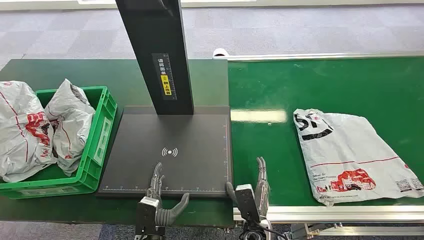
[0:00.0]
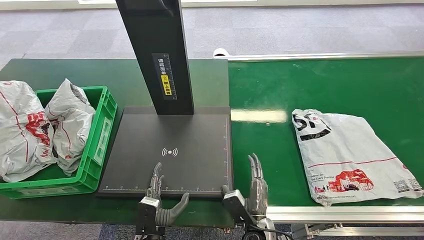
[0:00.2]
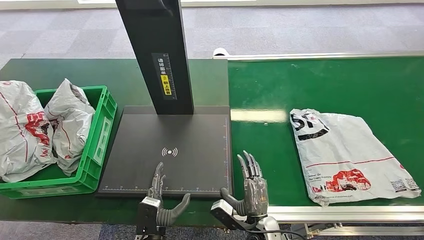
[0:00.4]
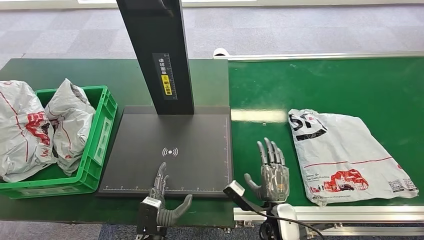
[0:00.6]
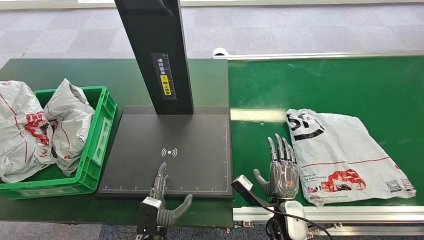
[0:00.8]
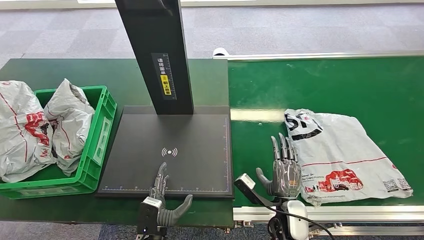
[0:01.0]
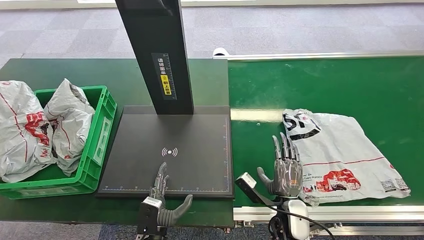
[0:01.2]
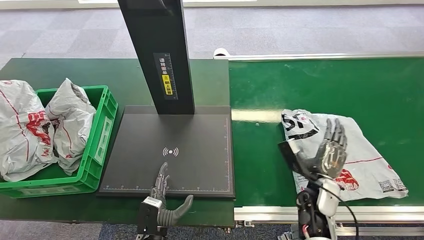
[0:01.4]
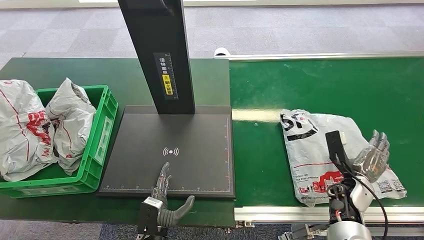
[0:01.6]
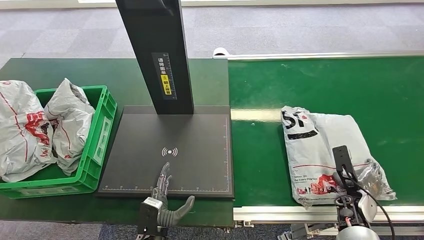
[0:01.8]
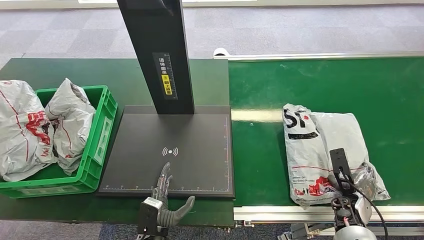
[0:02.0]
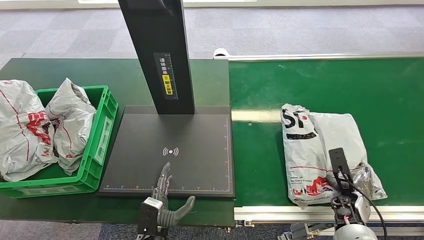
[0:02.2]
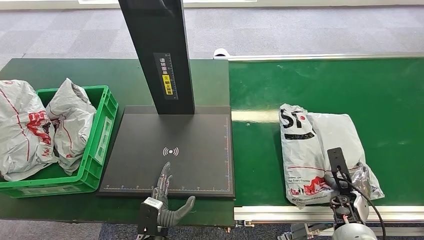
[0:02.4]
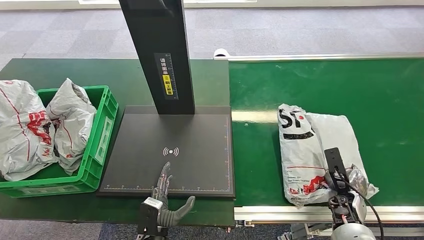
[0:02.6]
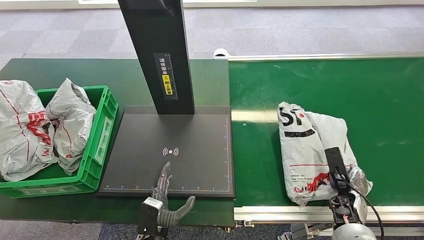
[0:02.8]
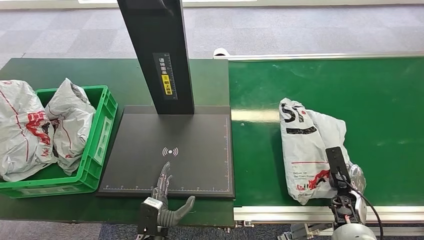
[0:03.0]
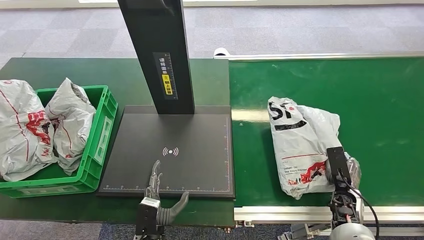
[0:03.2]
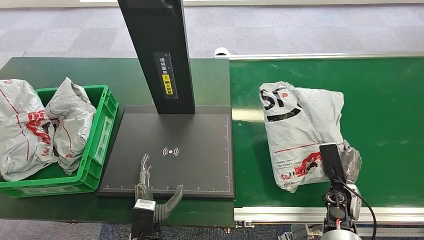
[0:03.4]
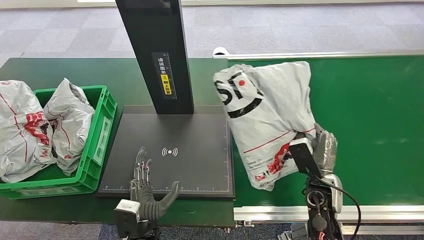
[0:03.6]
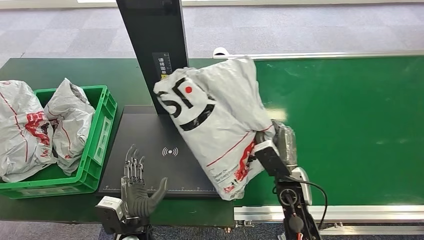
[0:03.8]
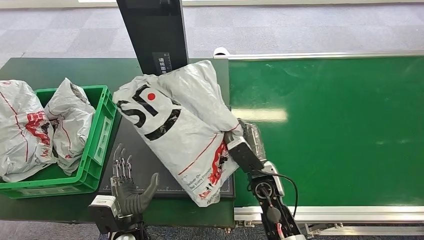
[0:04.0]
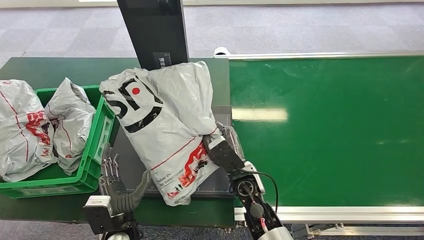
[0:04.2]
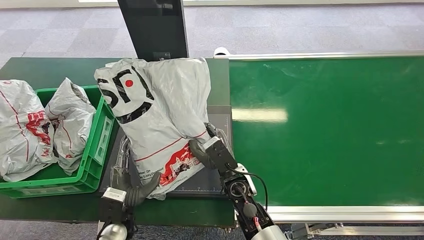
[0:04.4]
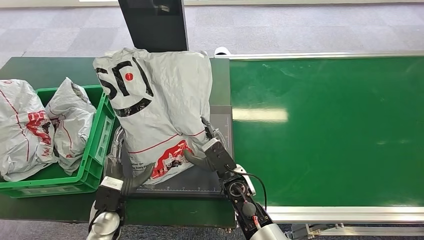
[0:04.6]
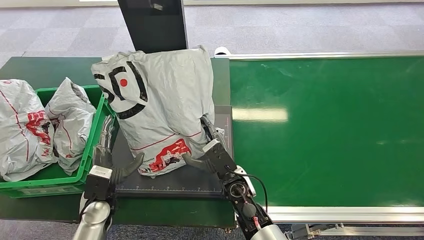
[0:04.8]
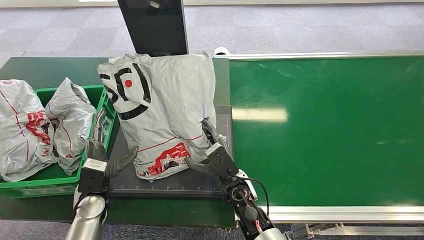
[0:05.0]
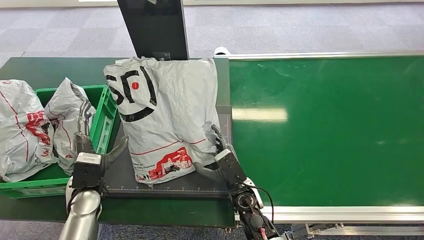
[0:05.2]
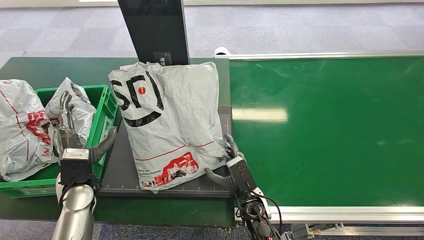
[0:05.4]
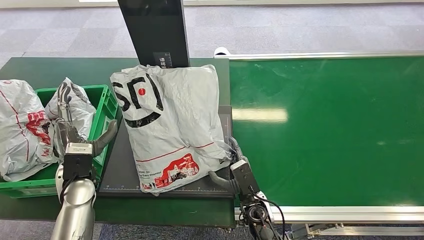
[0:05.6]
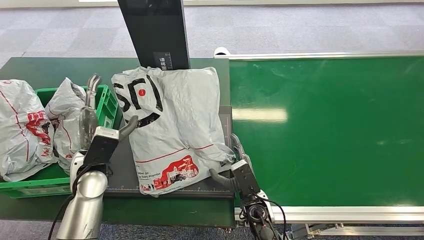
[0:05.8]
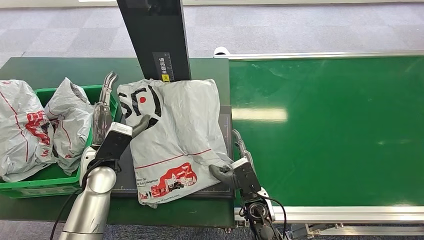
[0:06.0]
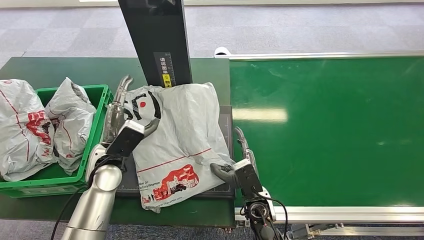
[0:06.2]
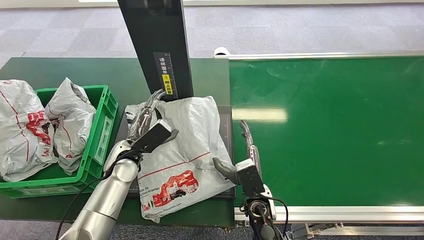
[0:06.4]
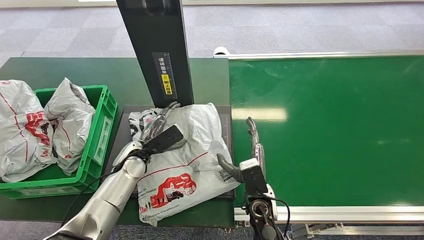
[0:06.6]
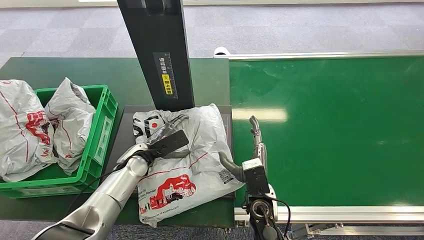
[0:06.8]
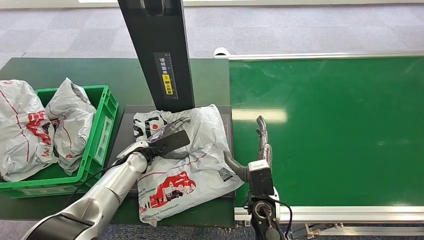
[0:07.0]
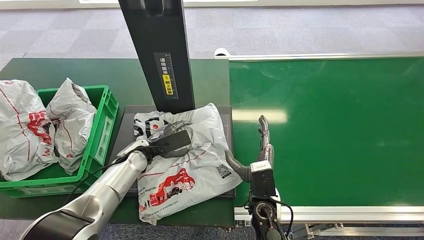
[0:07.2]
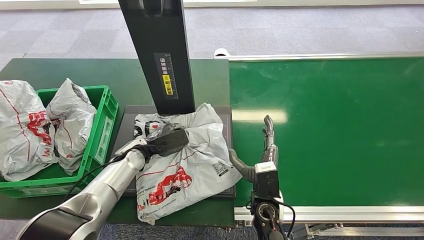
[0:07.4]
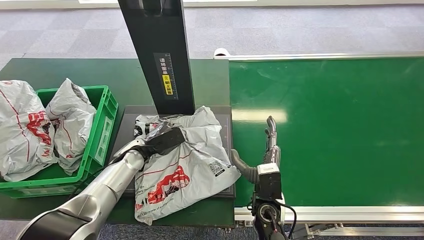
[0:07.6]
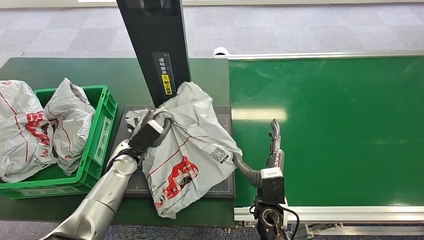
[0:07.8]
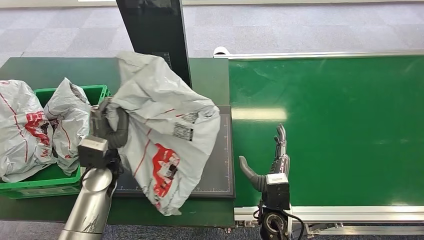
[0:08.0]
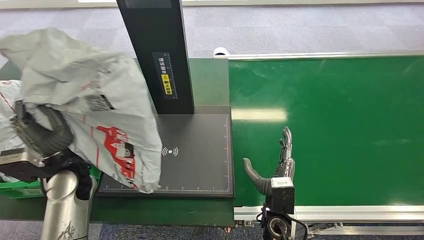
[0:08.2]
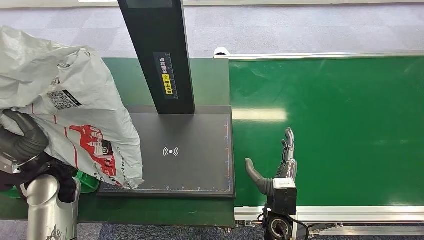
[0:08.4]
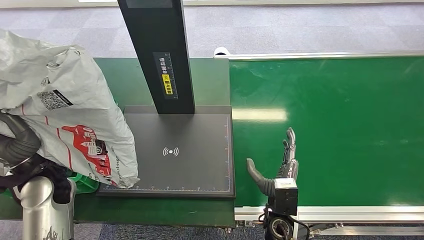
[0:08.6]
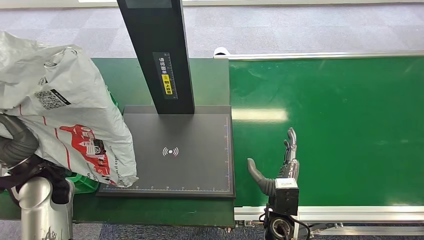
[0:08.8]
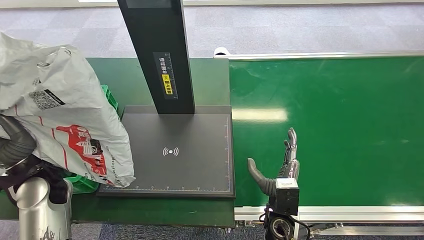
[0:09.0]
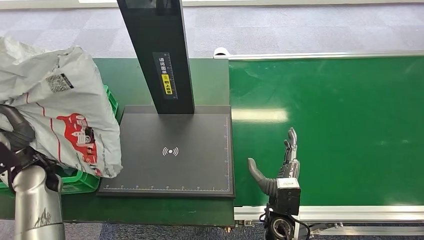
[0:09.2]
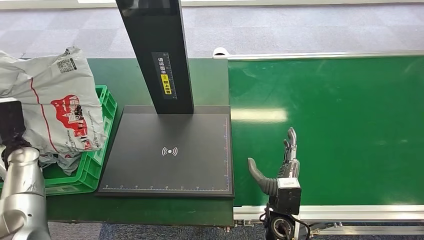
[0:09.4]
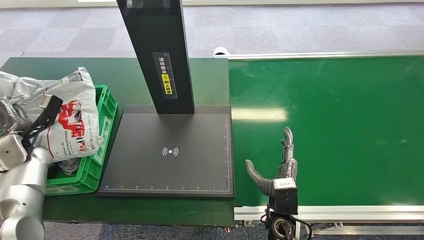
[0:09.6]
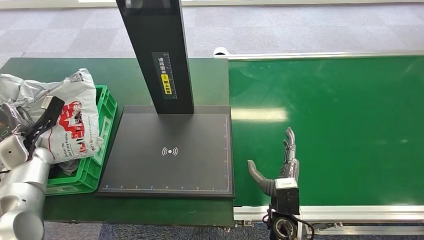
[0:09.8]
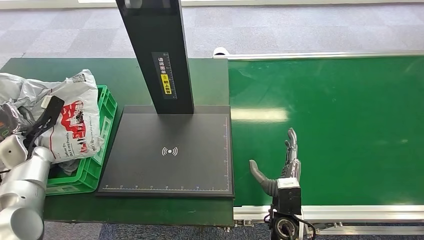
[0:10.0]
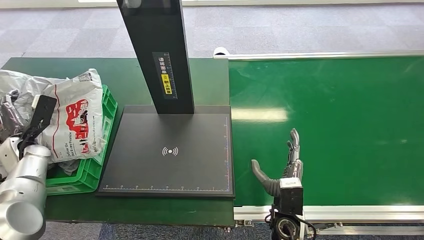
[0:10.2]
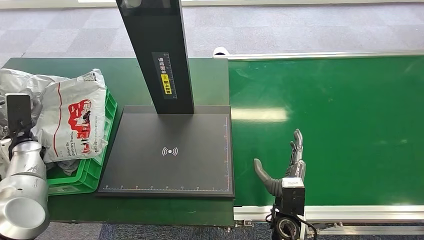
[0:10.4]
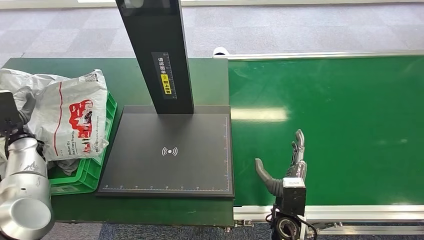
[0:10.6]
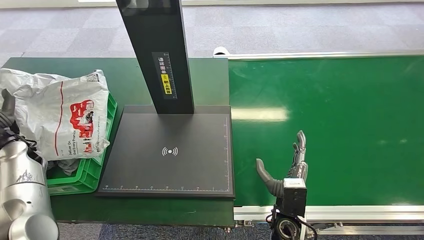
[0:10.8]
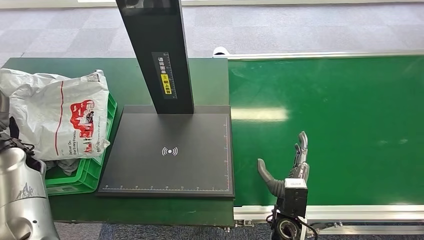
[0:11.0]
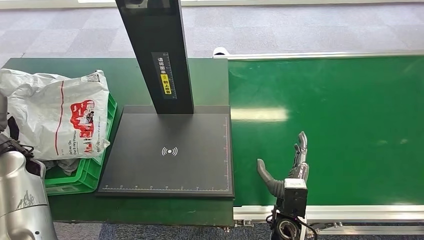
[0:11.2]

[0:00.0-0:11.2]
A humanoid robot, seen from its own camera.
Step, 0:00.0 to 0:04.2: Pick up the package from the conveyor belt.
Step, 0:04.6 to 0:06.4: Place the package onto the inbound machine.
Step, 0:06.8 to 0:08.4: Pick up the package from the inbound machine.
Step, 0:08.8 to 0:11.2: Place the package into the parcel locker.
0:01.6 to 0:03.2: The right hand moves about 5 cm.
0:09.6 to 0:11.2: The left hand ends up about 5 cm from where it was.

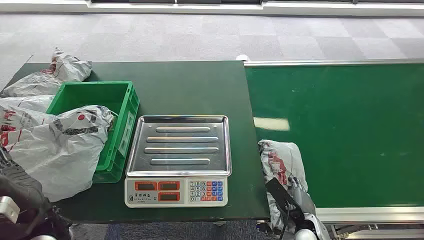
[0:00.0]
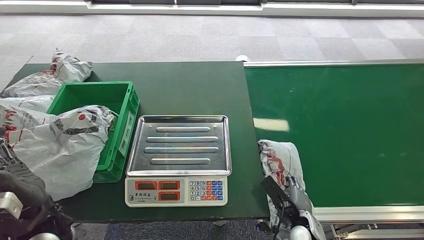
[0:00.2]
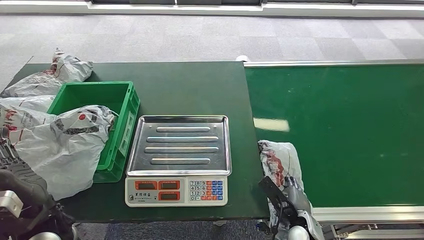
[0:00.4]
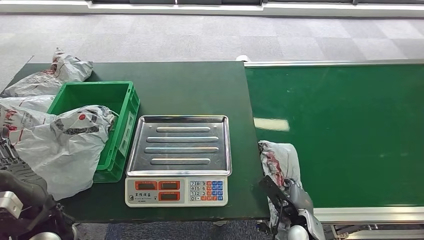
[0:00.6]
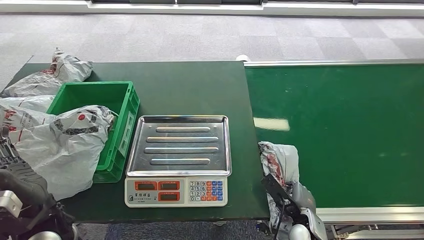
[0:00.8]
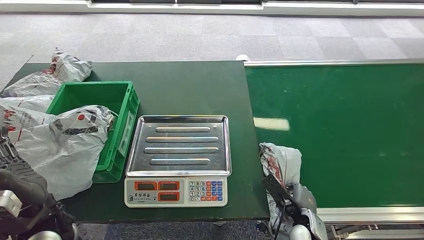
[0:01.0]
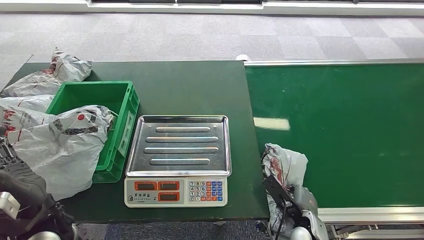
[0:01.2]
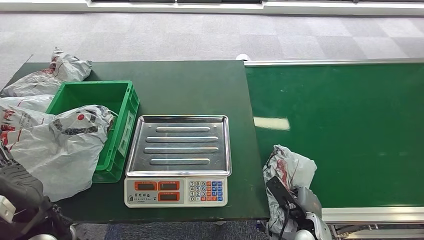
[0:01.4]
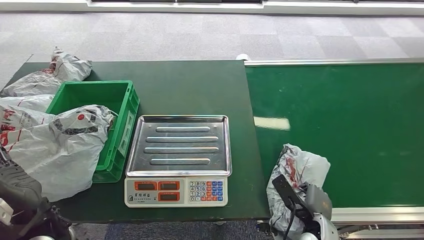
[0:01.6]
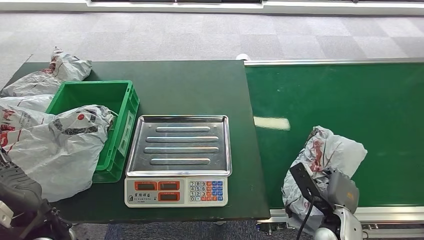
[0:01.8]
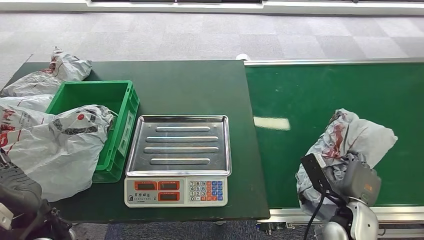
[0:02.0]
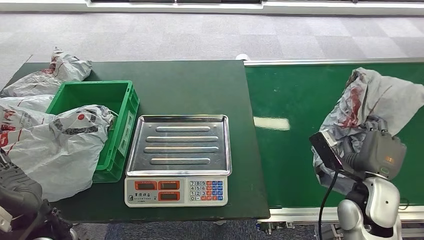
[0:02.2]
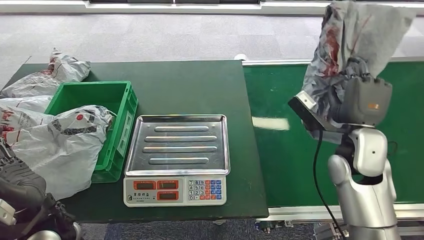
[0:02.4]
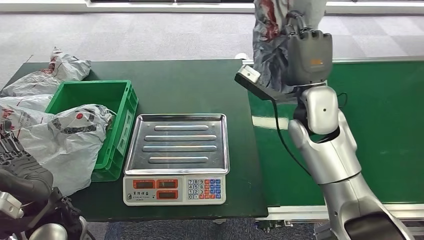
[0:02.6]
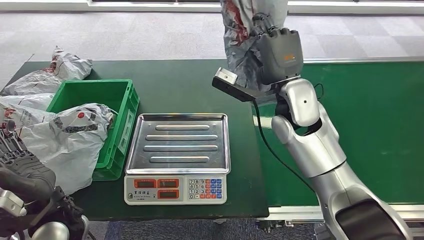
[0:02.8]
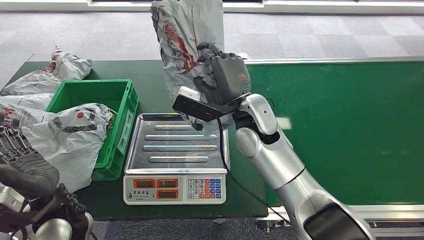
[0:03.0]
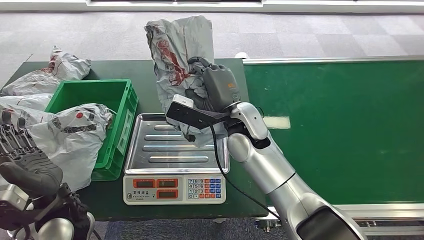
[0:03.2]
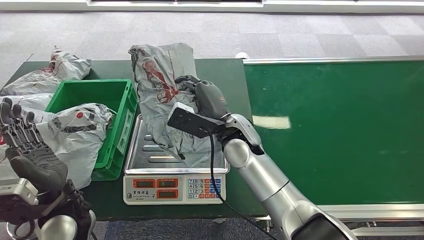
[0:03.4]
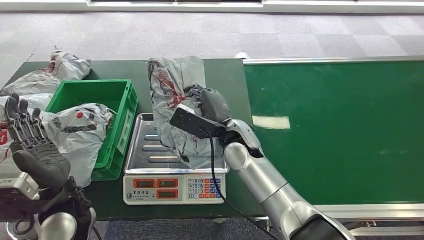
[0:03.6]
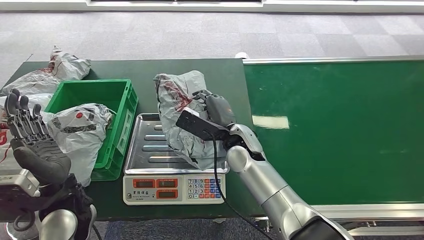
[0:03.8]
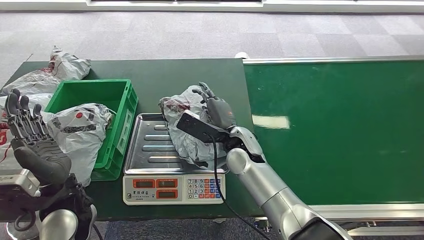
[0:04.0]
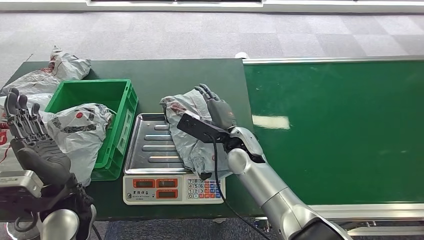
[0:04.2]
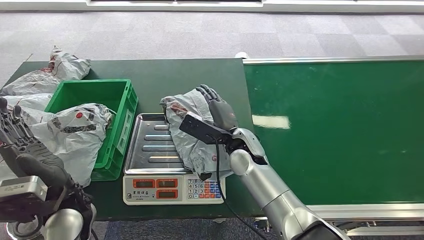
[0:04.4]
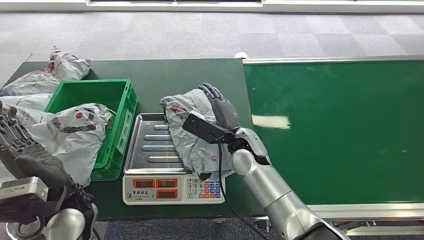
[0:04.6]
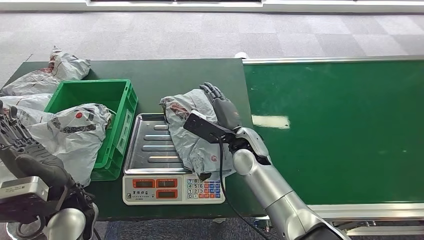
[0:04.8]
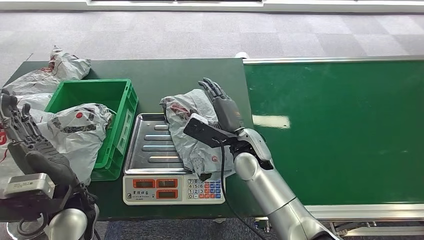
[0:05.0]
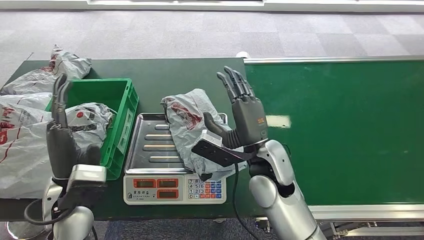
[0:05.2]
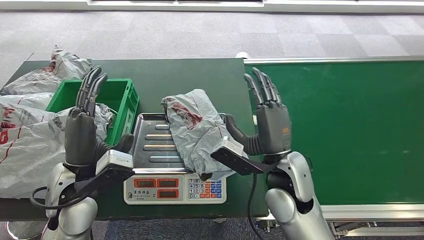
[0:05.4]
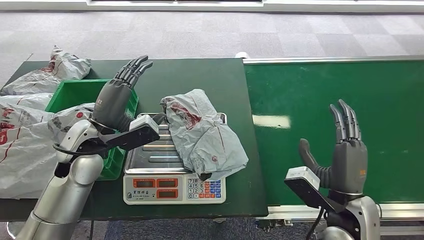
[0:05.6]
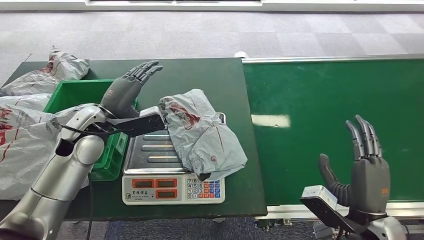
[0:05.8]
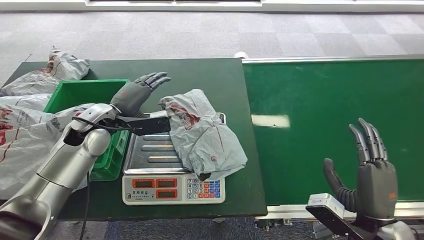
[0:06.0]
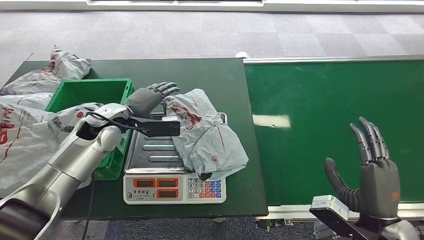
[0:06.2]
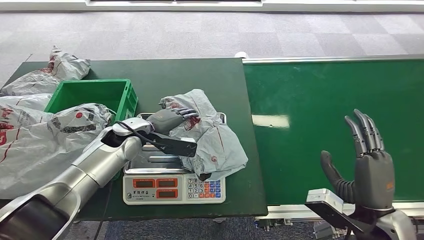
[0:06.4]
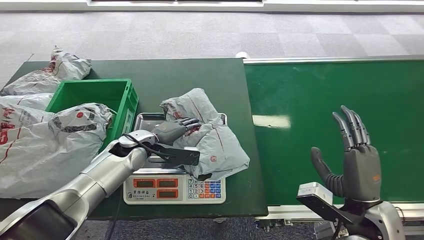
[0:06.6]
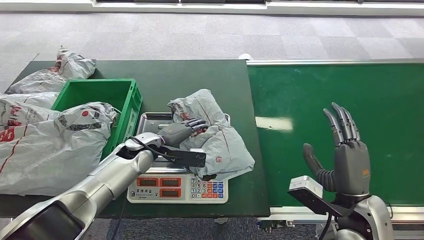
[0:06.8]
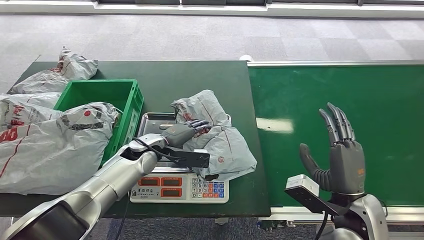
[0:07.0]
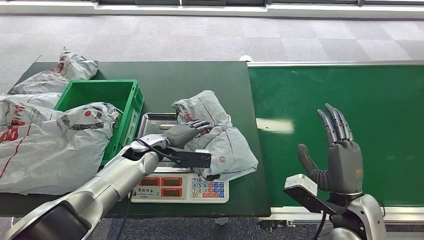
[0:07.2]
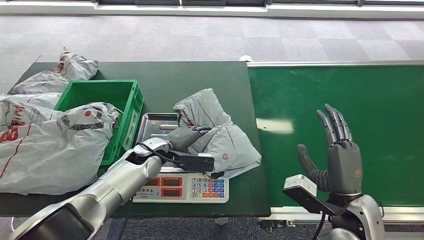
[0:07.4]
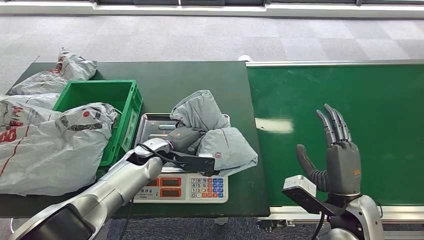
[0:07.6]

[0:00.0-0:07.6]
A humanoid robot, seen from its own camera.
Step, 0:00.0 to 0:02.6: Pick up the package from the conveyor belt.
Step, 0:02.8 to 0:05.6: Place the package onto the inbound machine.
